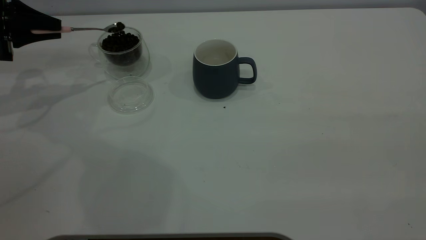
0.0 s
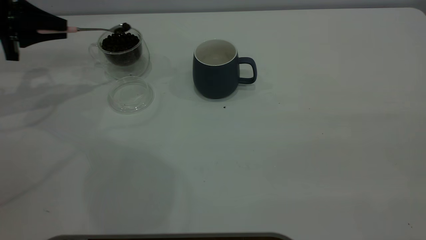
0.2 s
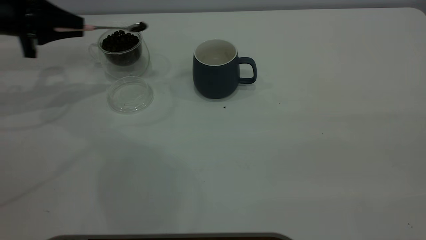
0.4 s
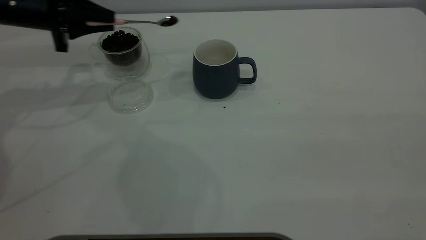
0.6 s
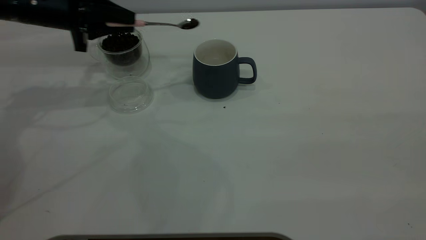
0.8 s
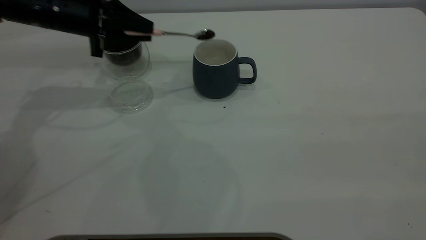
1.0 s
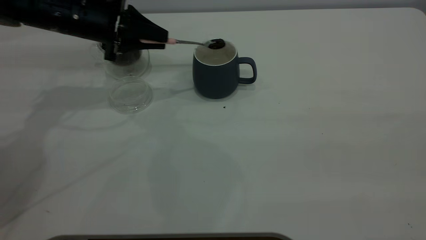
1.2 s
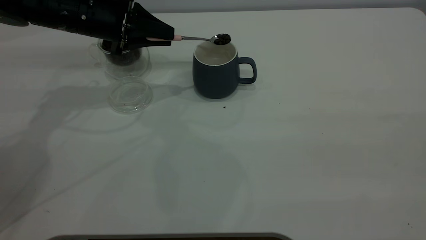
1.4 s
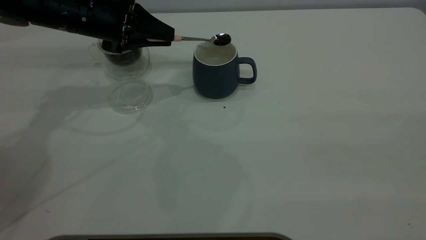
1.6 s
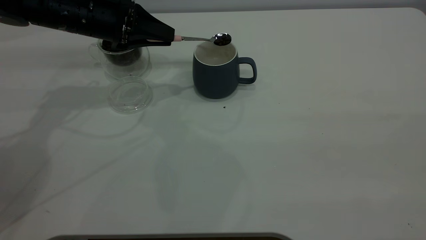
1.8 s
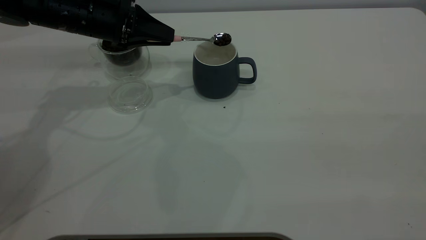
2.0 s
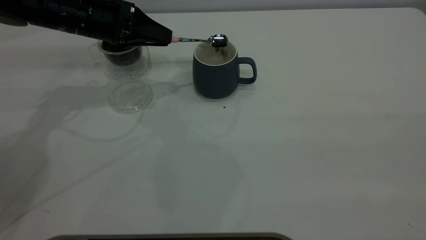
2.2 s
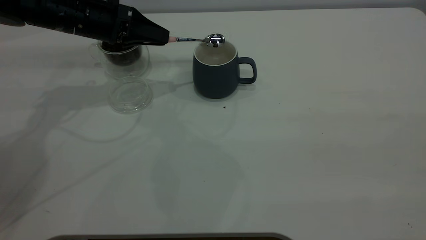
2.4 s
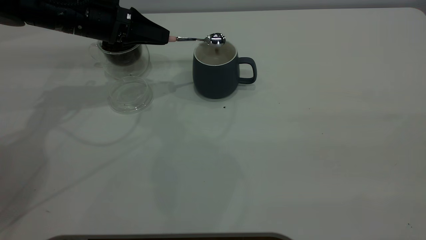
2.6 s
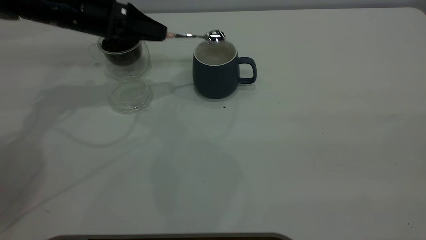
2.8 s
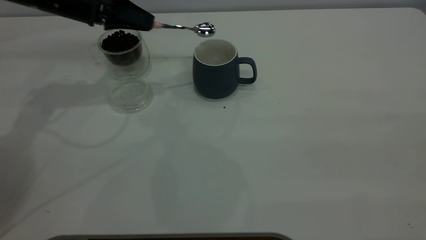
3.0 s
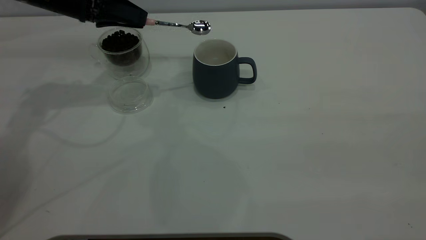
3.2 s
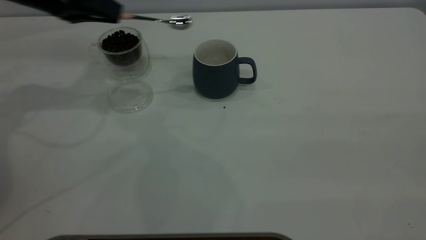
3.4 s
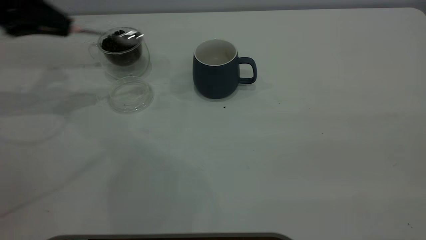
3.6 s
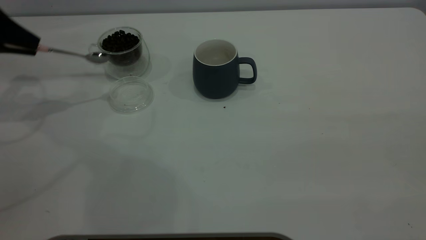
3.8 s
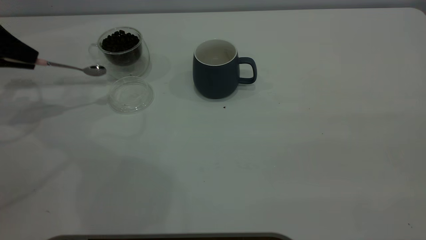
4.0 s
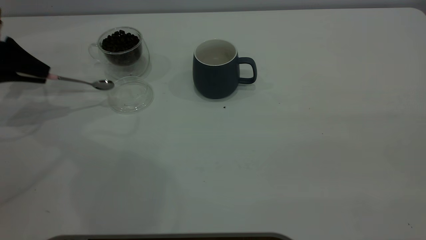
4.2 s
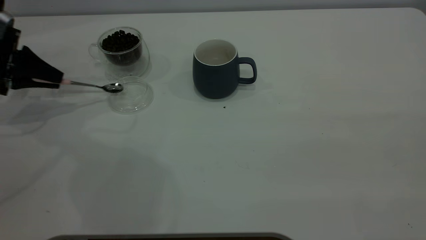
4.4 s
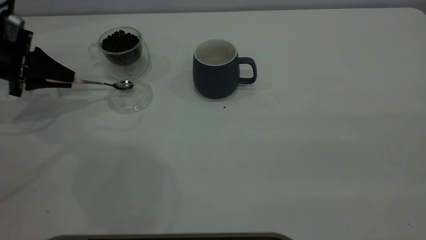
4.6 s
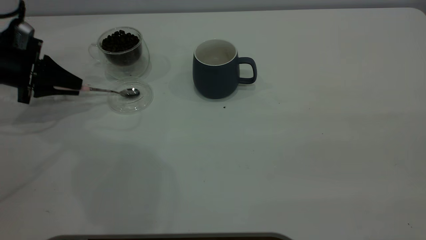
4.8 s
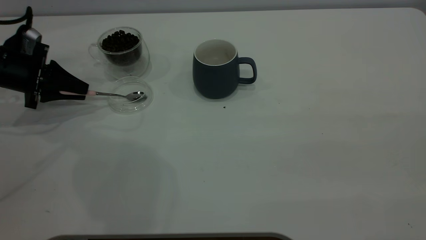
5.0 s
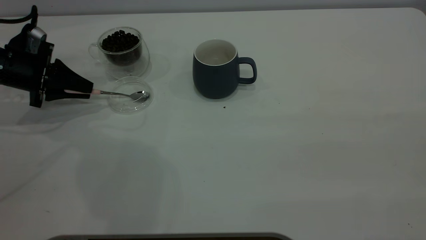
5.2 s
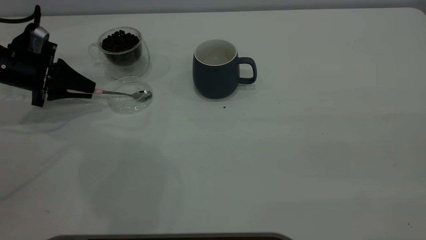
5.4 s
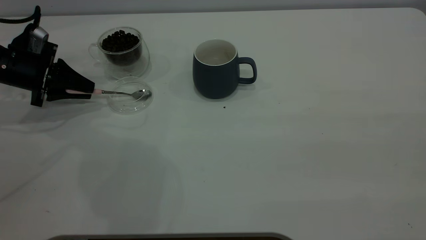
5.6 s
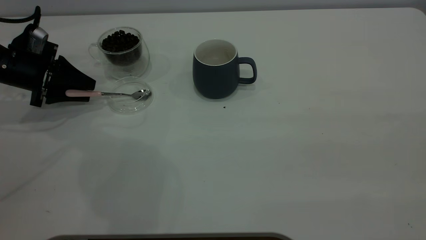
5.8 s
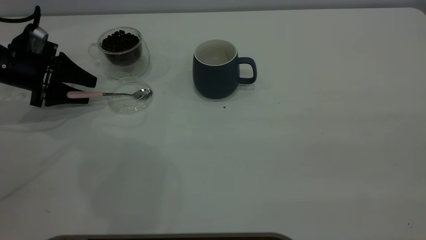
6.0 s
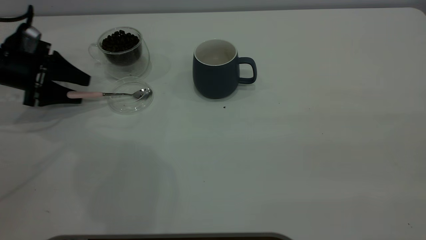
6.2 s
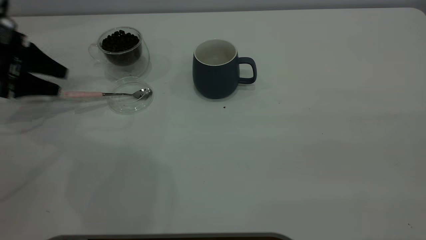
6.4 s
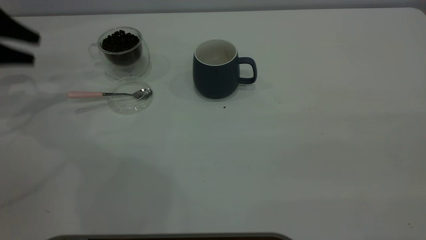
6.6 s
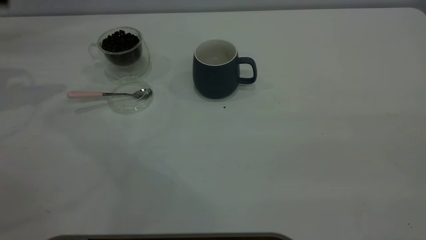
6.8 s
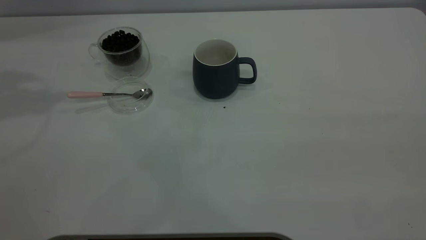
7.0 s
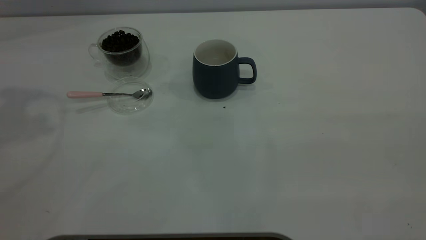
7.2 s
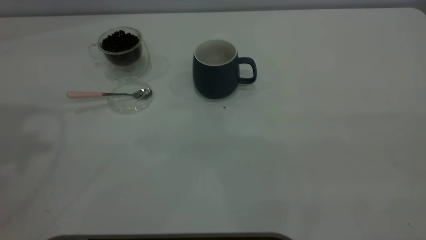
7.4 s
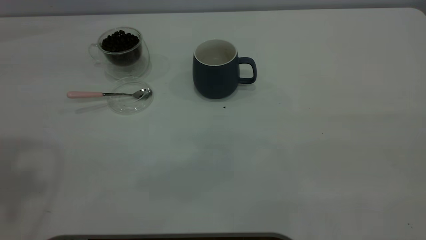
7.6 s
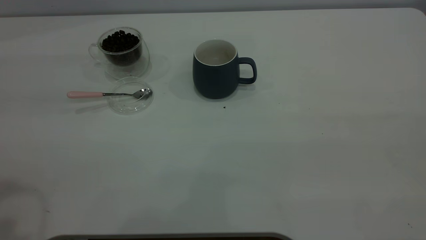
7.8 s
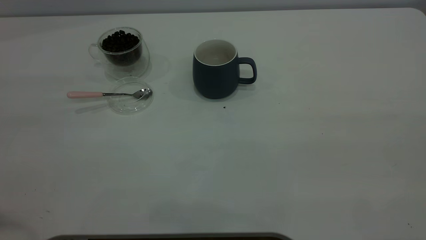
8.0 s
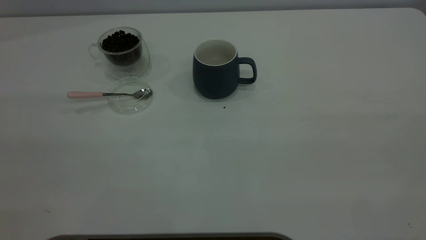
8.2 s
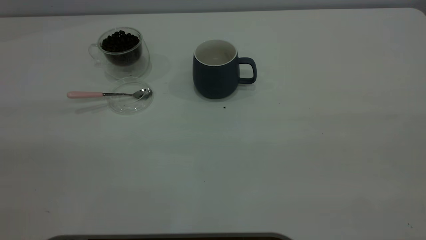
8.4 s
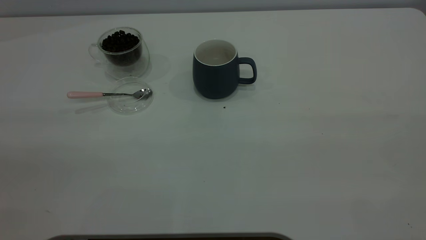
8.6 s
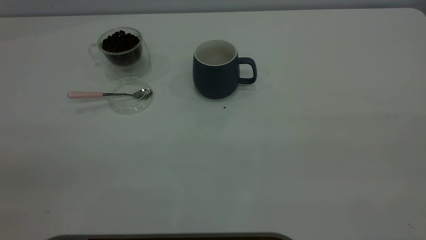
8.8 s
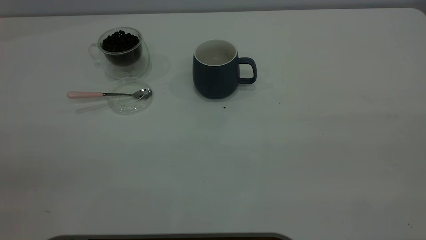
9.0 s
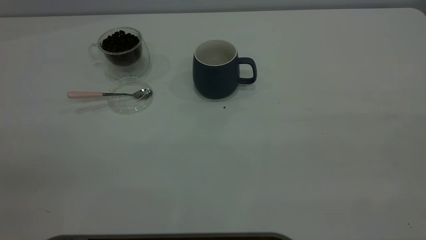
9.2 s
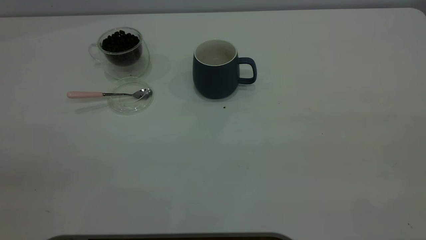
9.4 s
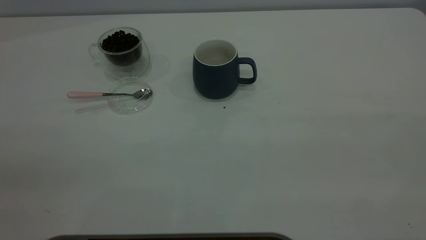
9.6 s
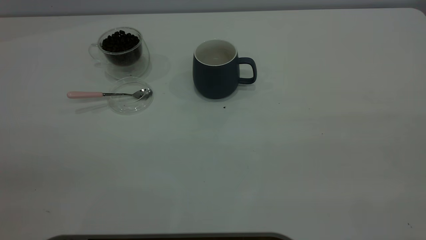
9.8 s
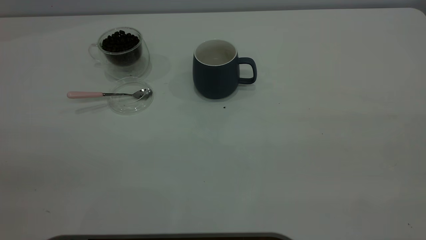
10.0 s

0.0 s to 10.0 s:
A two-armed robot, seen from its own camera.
Task of the whole recording: the right gripper place the grey cup in the center of the table, the left gripper take the pink spoon from the cup lid and scoop out the coffee beans from the coffee cup and put them into the grey cup, the left gripper put the spoon back into the cup lid.
Step, 0.0 to 3.0 s: Scoop a spoonful of beans into the cup.
Step, 3.2 to 6.4 s: Place the spoon back in its original place.
0.0 to 1.4 s: The left gripper shifts about 20 cm to the right.
2.8 to 4.2 s: The left gripper heads to the left, covering approximately 20 cm.
4.2 to 5.8 s: The left gripper moves downward, approximately 5 cm, and opens.
5.8 to 7.2 s: The left gripper heads upward, covering some 35 cm.
